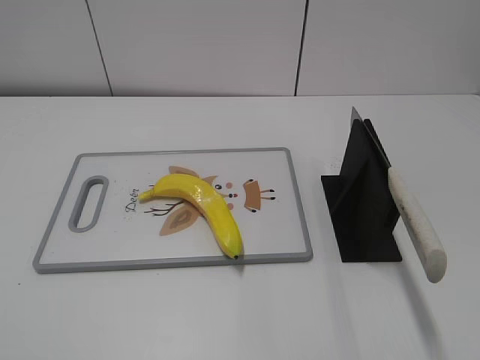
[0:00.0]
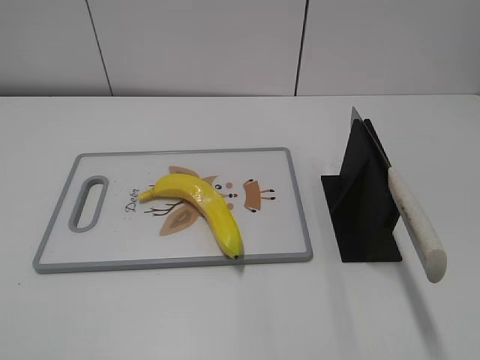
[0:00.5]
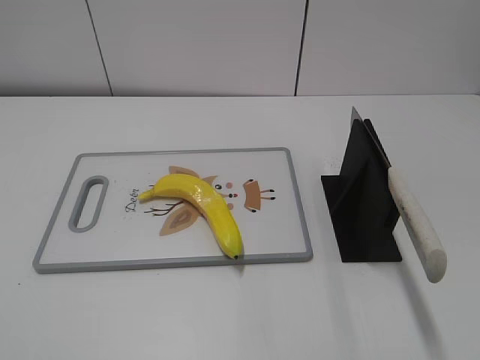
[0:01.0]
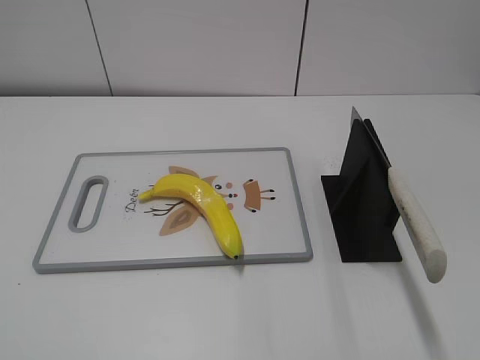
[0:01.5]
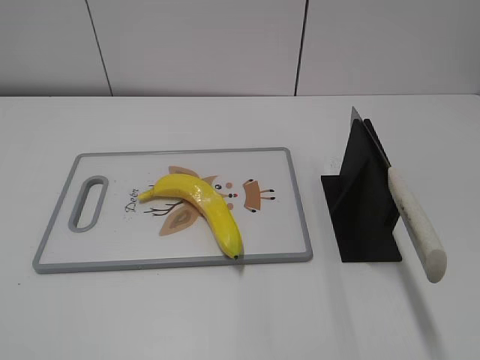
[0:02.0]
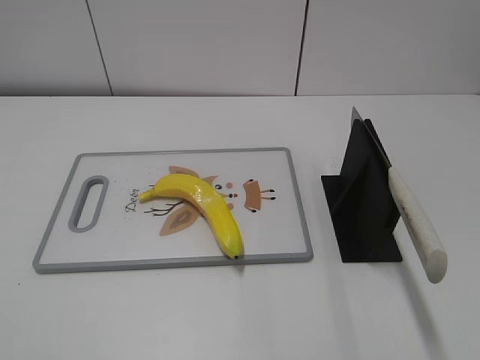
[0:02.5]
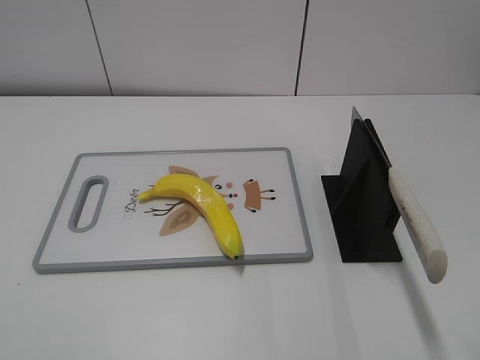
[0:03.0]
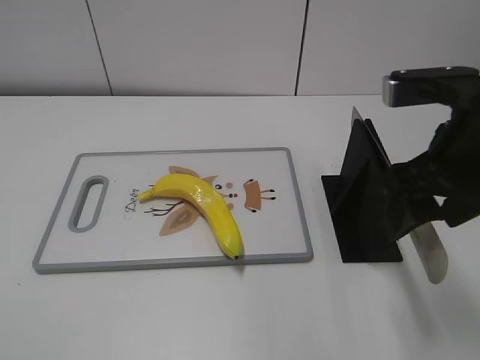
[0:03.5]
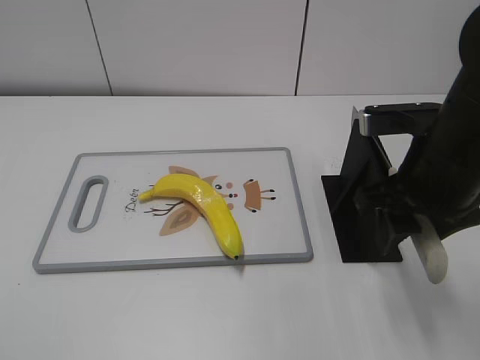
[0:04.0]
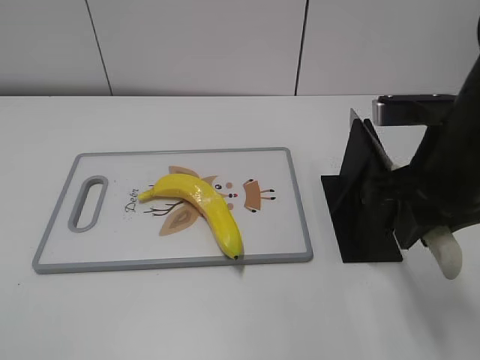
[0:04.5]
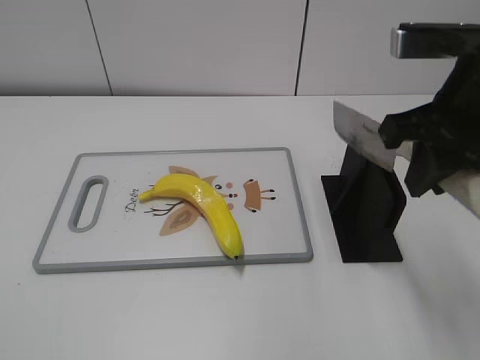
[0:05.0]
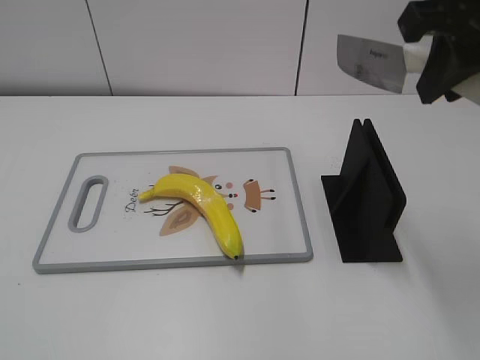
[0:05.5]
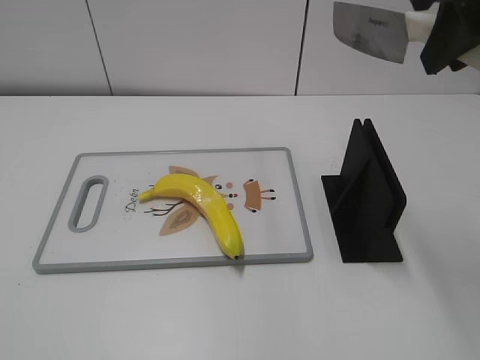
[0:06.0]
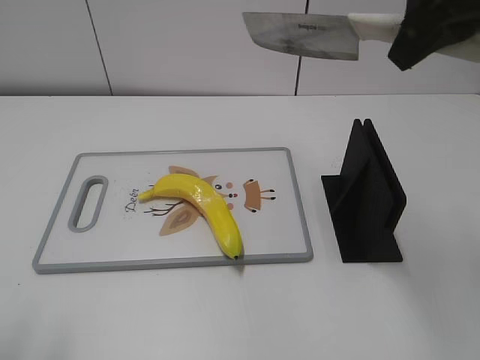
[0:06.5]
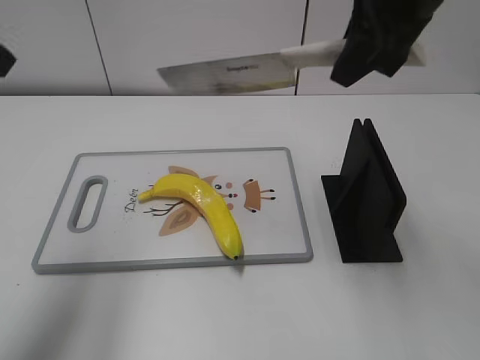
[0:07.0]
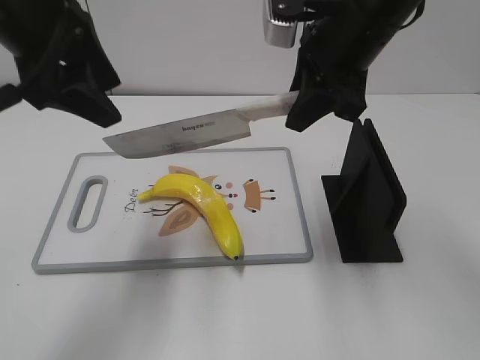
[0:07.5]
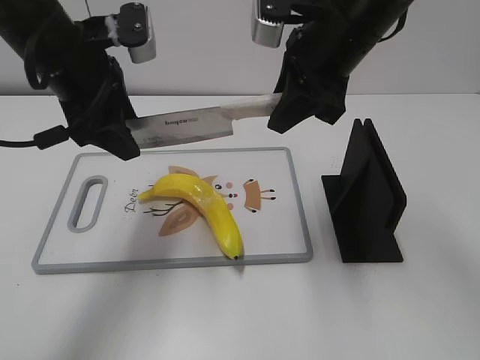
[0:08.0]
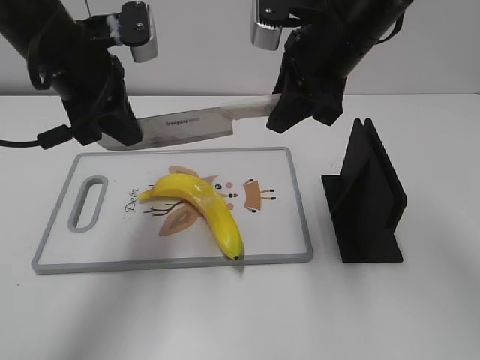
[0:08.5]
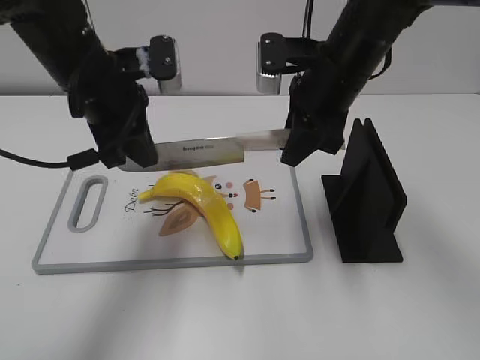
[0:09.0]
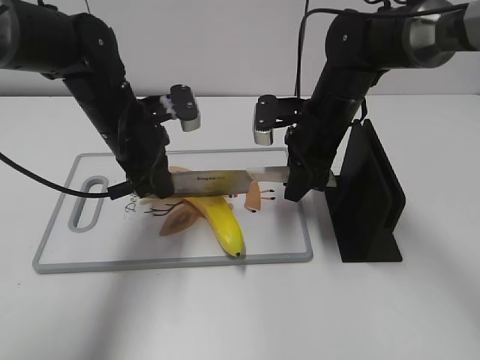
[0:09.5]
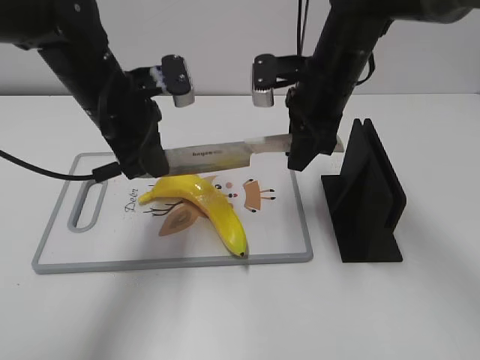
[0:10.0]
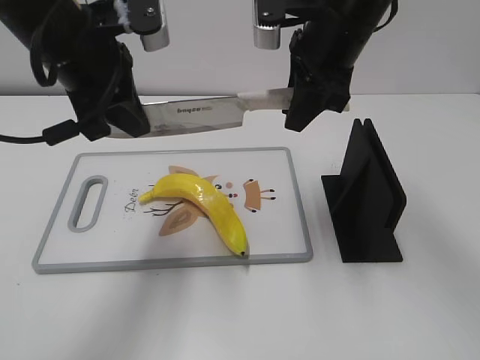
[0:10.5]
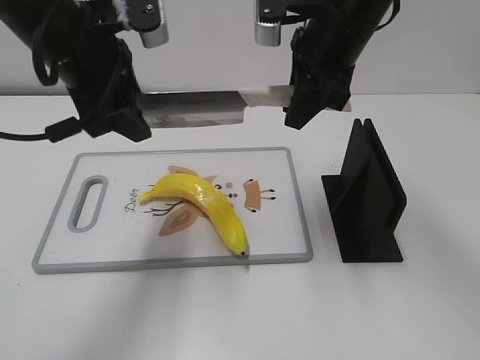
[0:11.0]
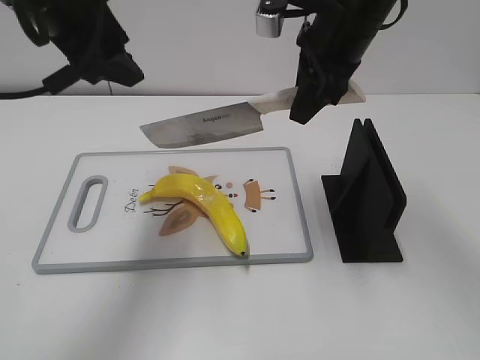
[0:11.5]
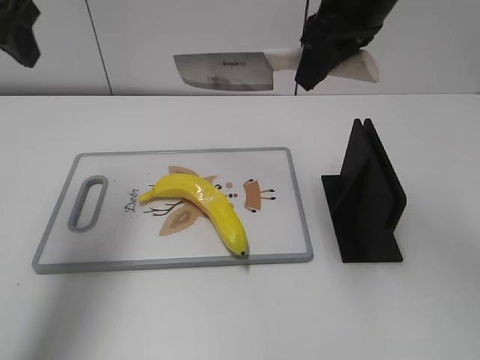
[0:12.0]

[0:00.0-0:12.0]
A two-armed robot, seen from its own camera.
Task of the whole recording: cut plastic banana.
Step, 0:00.0 to 0:05.5: Grab the knife handle with your right hand.
Step, 0:06.0 to 0:10.5: Lift the knife with your right hand.
Step, 0:11.0 to 0:12.0: Cut the banana with your right hand.
0:02.0 to 0:04.0: The right gripper is displaced forward and to the left by roughly 30 cm.
0:04.0 to 0:06.0: The right gripper travels upward by approximately 15 cm, and closes.
0:06.0 to 0:08.0: The left gripper heads forward and to the right, covering roughly 35 cm; the right gripper heads downward, forward and to the left, covering some 15 cm.
0:08.0 to 0:10.0: Both grippers move downward, some 10 cm. The left gripper closes its fingers.
0:10.0 to 0:12.0: The left gripper goes some 20 cm upward and to the left, and opens. The right gripper shifts approximately 15 cm upward.

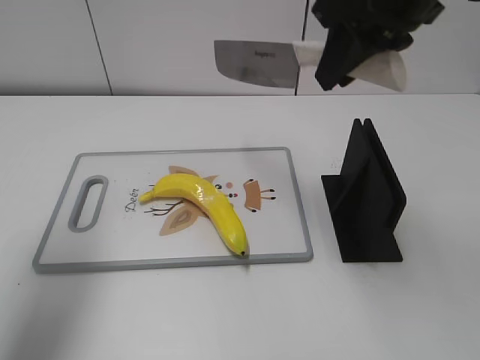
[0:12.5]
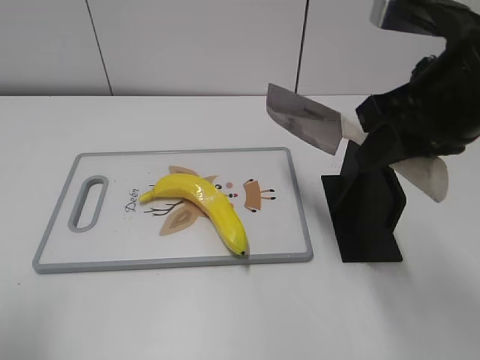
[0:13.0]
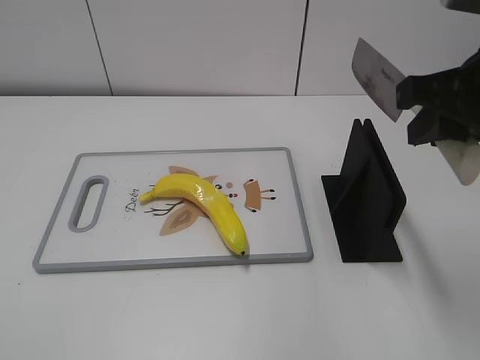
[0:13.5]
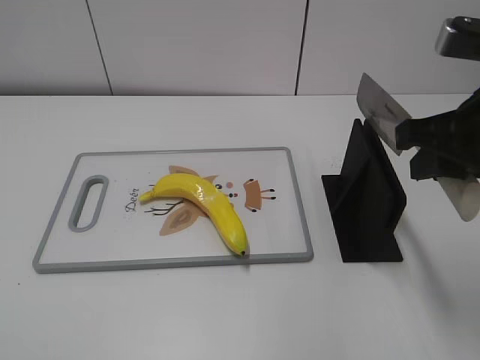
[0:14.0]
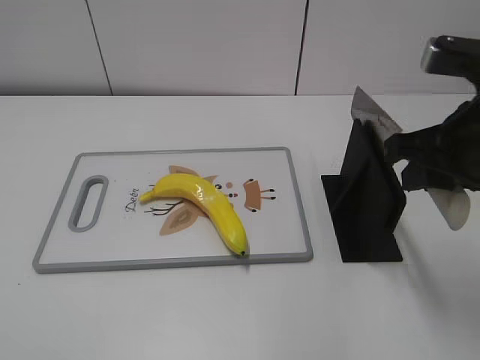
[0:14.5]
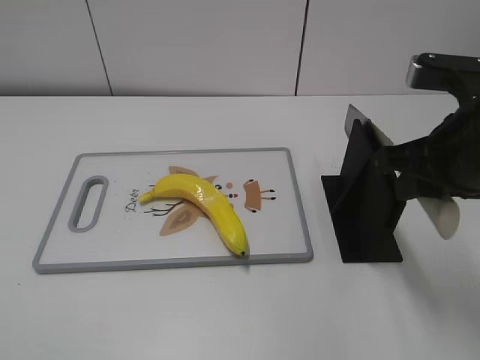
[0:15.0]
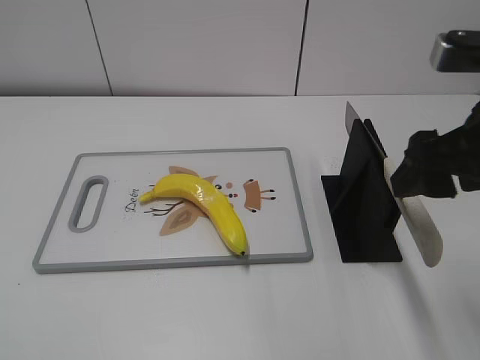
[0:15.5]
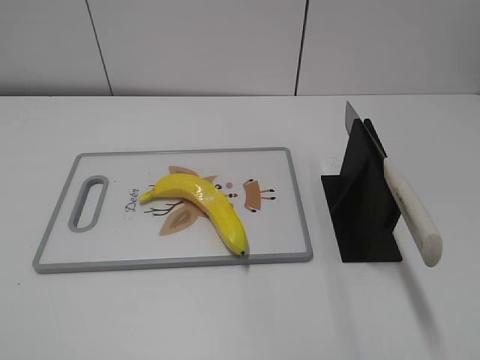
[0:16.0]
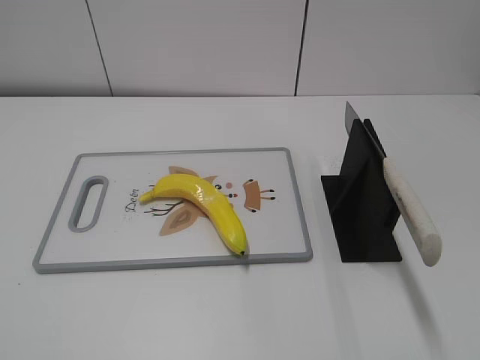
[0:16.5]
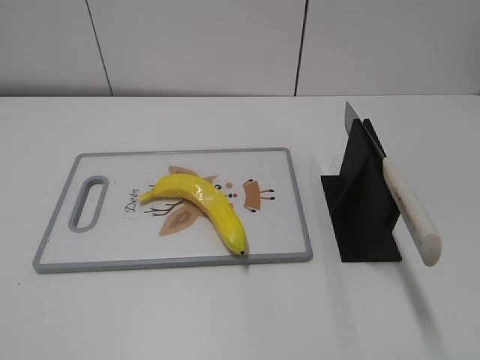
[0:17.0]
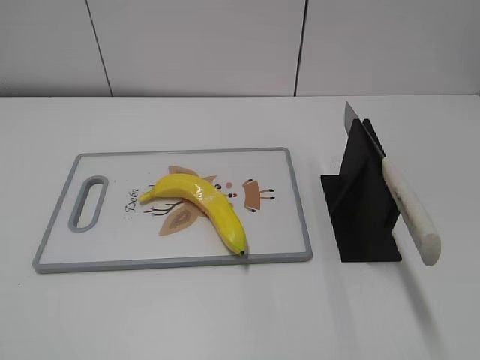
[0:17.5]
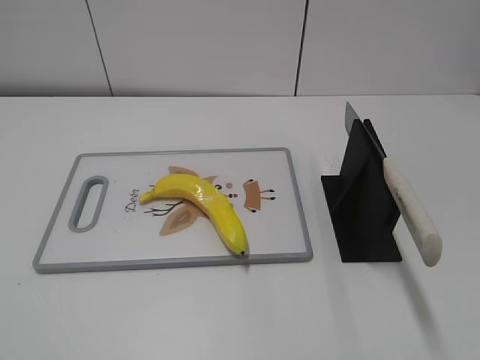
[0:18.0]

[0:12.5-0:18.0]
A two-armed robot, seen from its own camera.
Task of the whole recording: cut plastic banana.
Step, 0:12.5 to 0:13.5: Lift the knife with your right hand.
Step, 0:14.0 to 0:18.0: Place the knife on the storage rack with your right hand.
0:12.5 to 0:14.5: The right gripper moves backward, downward and to the right, about 15 cm; the left gripper heads backward, covering some 30 cm.
0:14.5 to 0:16.0: The right gripper travels backward and upward by some 10 cm, and opens its fingers.

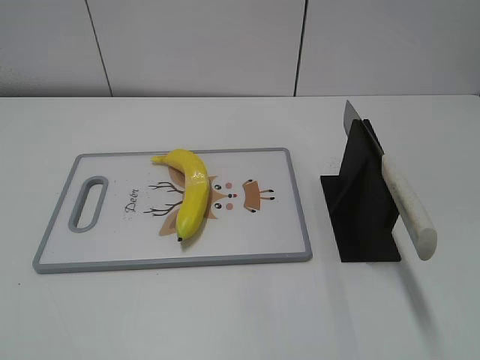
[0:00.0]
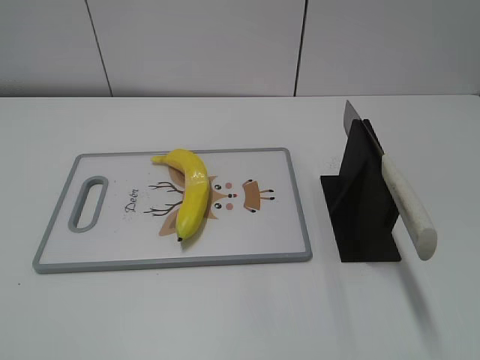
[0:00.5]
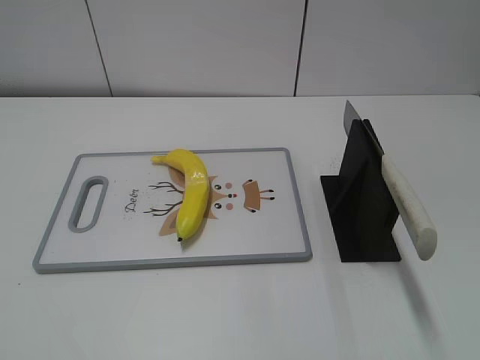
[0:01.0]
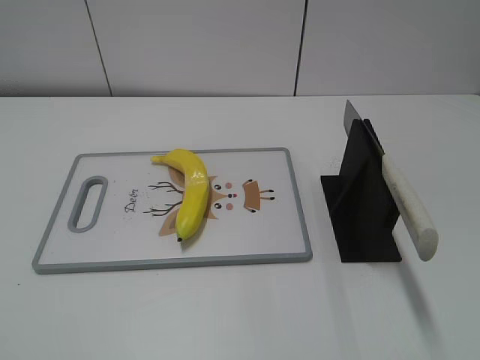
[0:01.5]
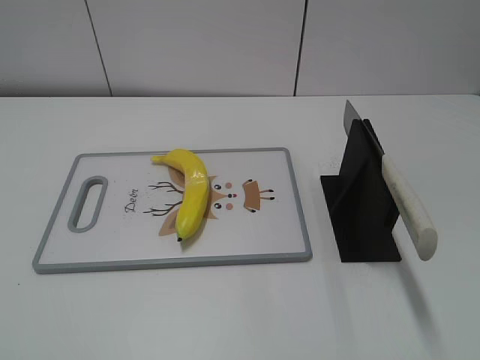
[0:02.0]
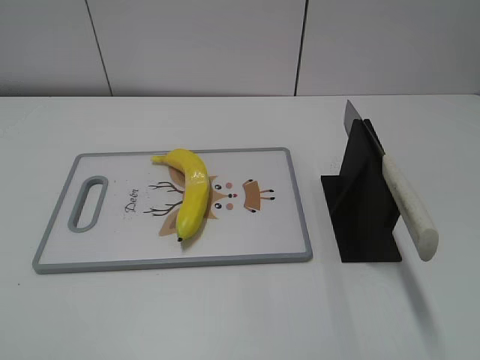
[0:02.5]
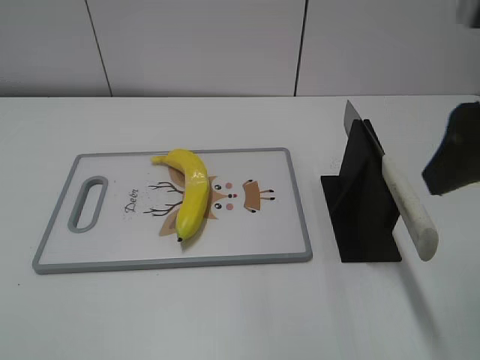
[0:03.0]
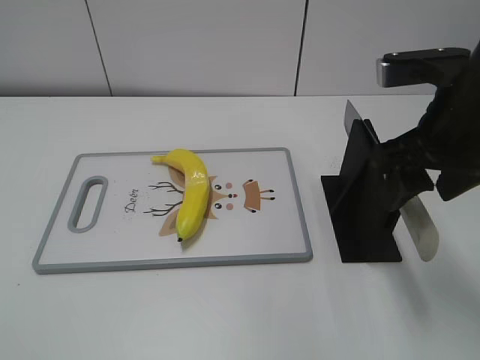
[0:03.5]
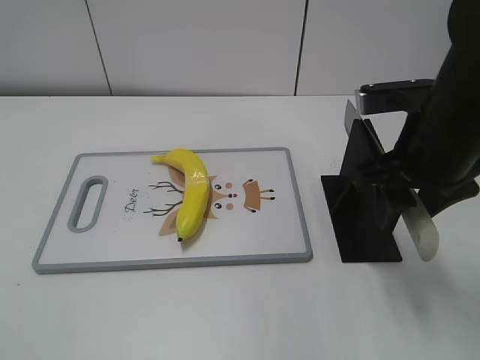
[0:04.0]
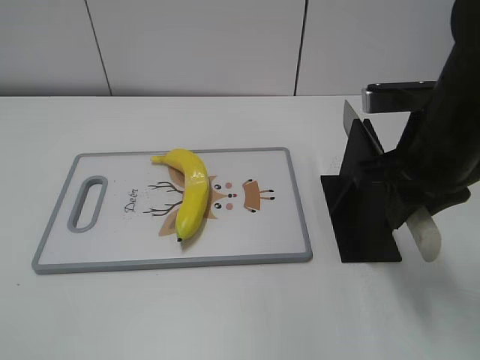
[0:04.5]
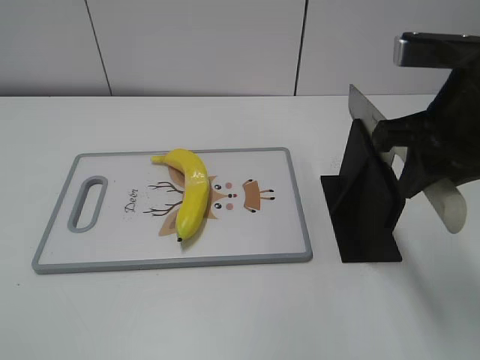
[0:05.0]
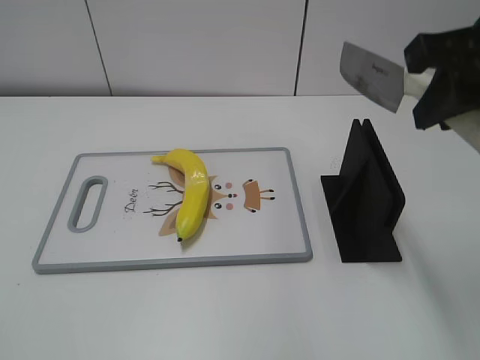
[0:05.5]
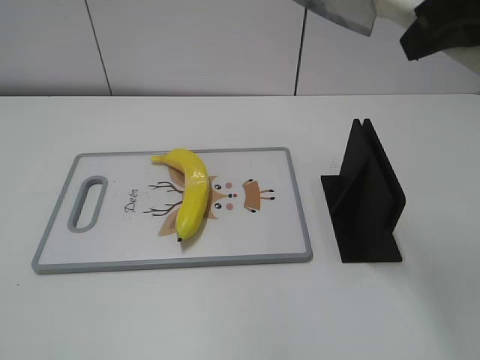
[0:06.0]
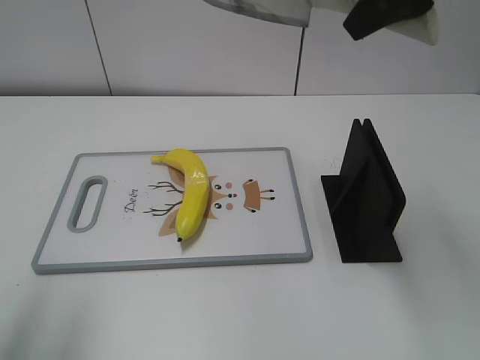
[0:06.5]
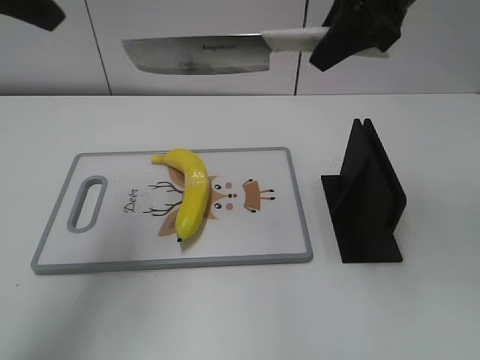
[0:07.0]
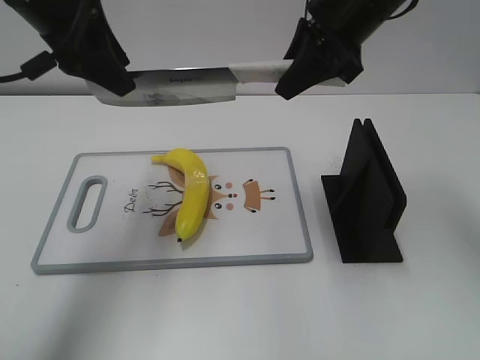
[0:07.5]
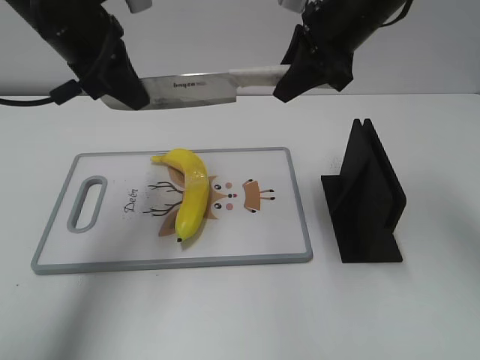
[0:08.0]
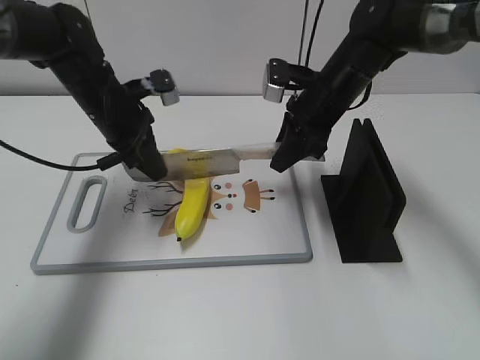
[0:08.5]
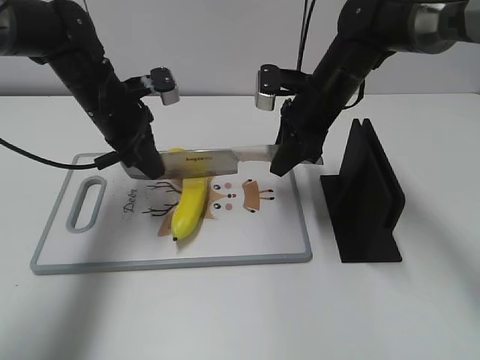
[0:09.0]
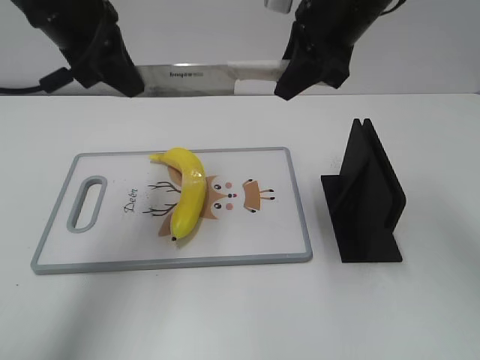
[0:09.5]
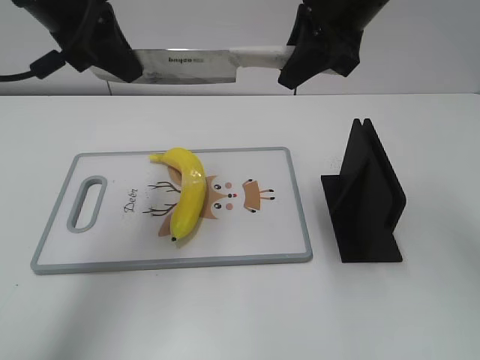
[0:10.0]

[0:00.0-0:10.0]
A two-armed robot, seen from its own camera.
Task of the whole recording: cut plastic banana.
Step, 0:00.0 to 0:05.0: Grab the knife handle with your right hand.
Step, 0:05.5 to 0:09.5: Lift the knife with your right hand.
0:02.0 to 0:04.0: The right gripper travels forward, to the left and downward by some 30 cm.
0:04.0 to 0:06.0: The right gripper moves upward, roughly 15 cm, and closes its fingers.
0:06.0 to 0:08.0: The right gripper moves forward, downward and to the left, about 20 cm; the left gripper travels forward by approximately 35 cm, and closes up.
0:08.0 to 0:10.0: The right gripper moves roughly 15 cm downward and comes back. The left gripper reaches some 15 cm downward, then returns.
